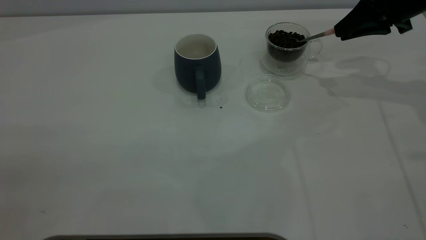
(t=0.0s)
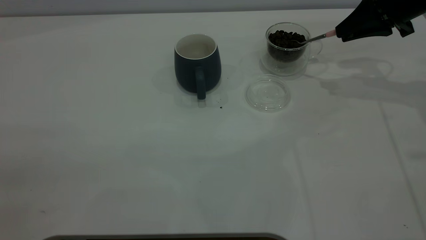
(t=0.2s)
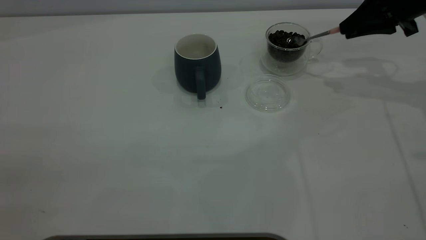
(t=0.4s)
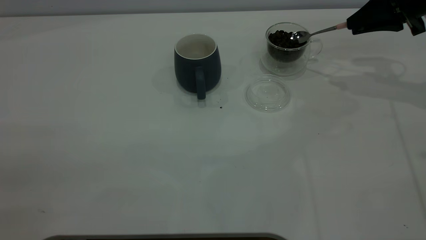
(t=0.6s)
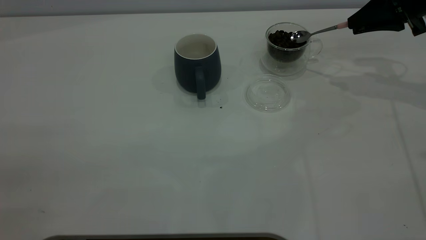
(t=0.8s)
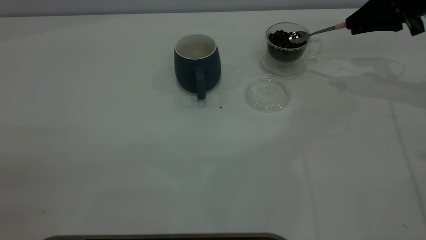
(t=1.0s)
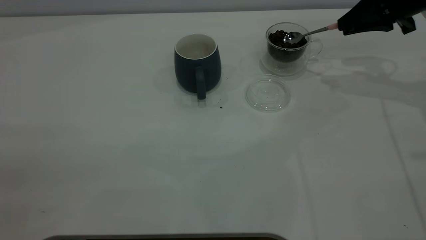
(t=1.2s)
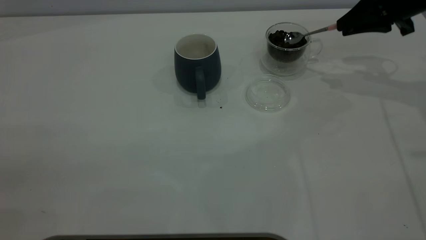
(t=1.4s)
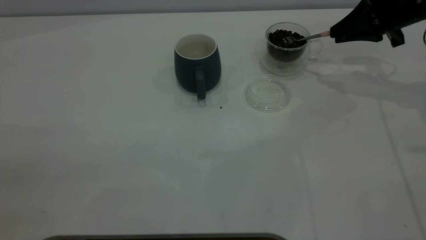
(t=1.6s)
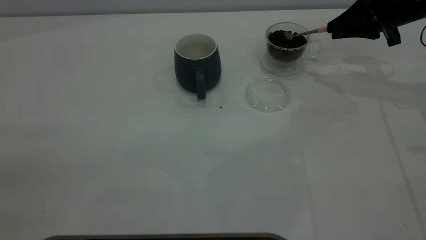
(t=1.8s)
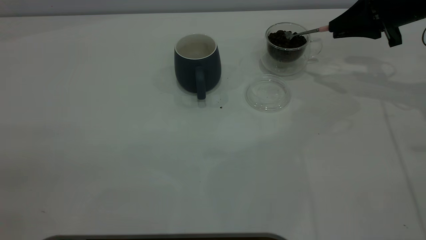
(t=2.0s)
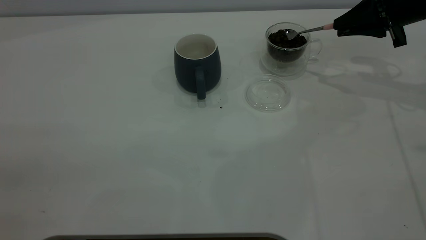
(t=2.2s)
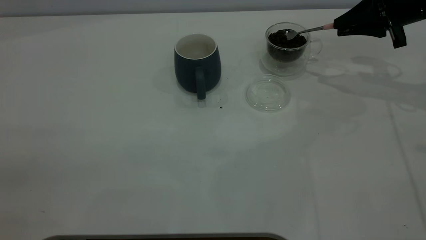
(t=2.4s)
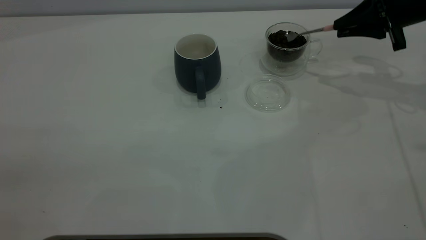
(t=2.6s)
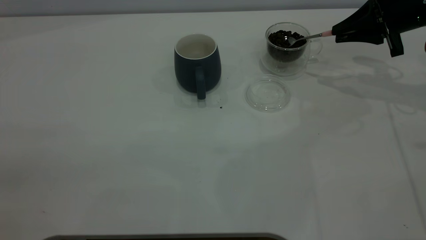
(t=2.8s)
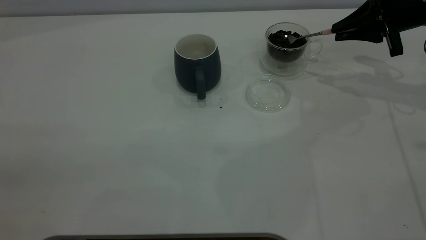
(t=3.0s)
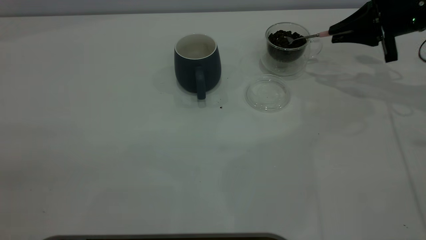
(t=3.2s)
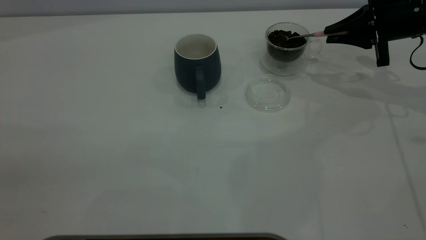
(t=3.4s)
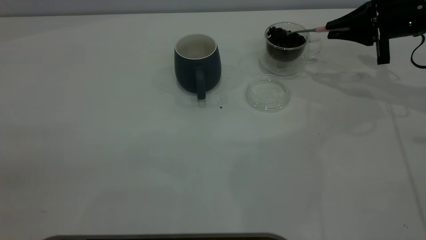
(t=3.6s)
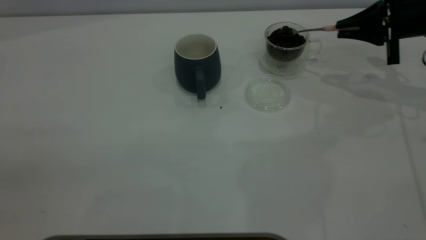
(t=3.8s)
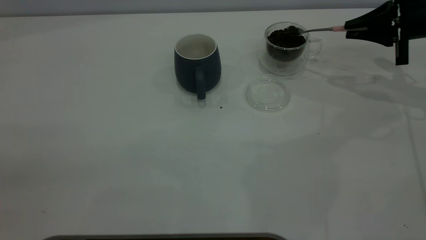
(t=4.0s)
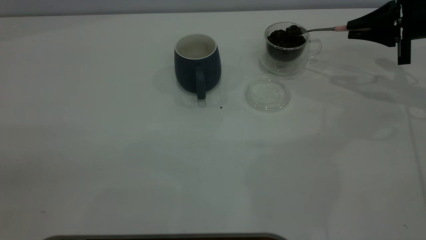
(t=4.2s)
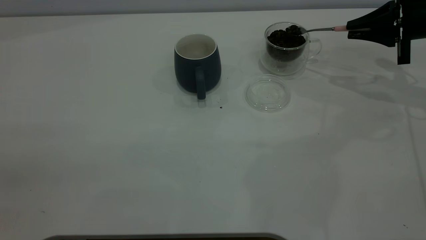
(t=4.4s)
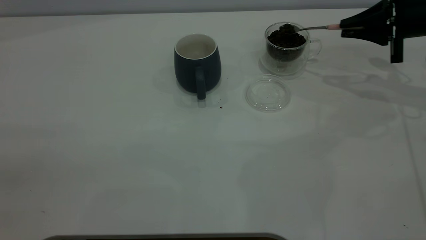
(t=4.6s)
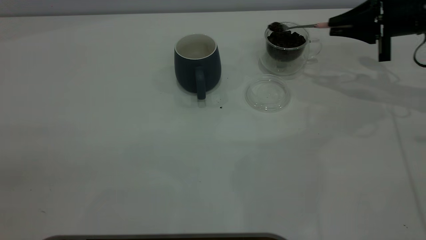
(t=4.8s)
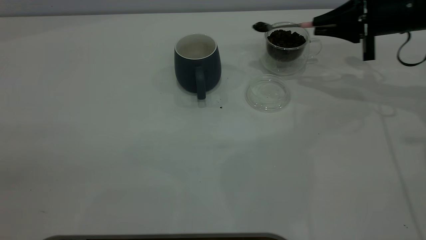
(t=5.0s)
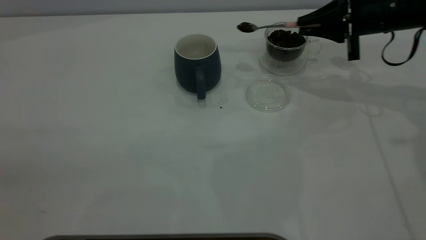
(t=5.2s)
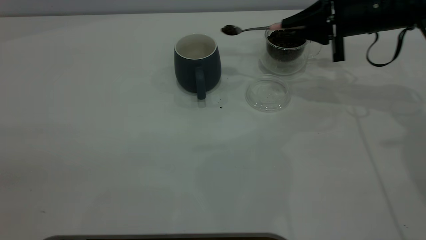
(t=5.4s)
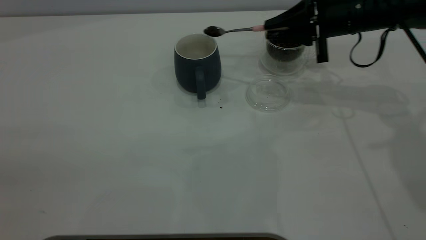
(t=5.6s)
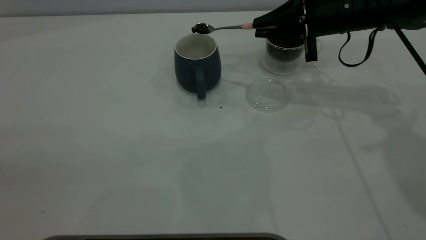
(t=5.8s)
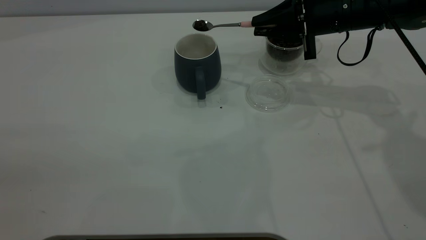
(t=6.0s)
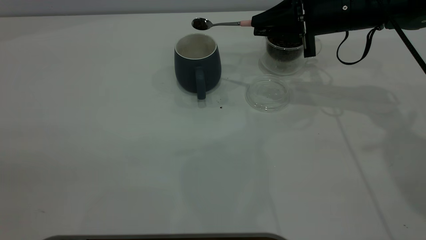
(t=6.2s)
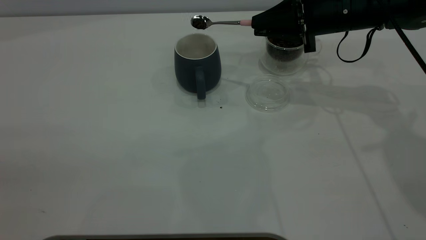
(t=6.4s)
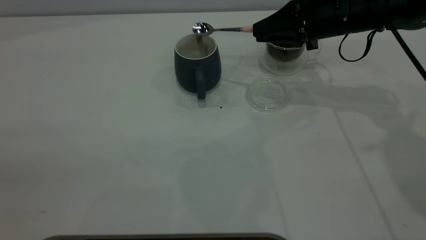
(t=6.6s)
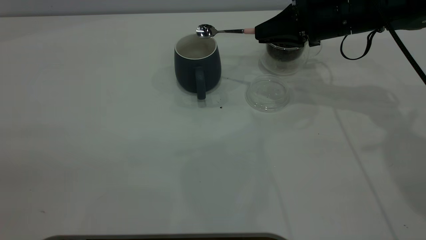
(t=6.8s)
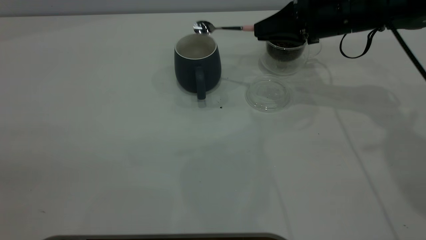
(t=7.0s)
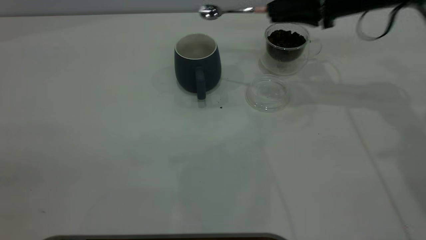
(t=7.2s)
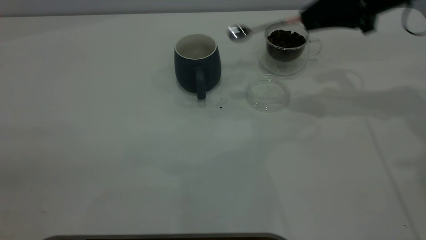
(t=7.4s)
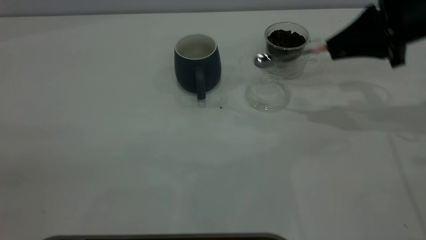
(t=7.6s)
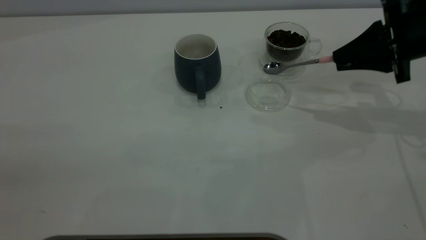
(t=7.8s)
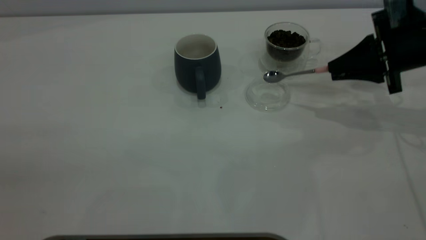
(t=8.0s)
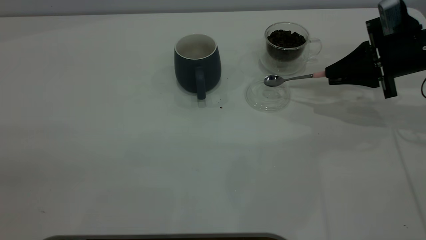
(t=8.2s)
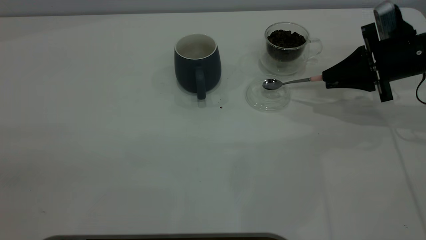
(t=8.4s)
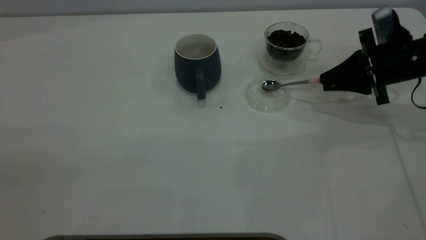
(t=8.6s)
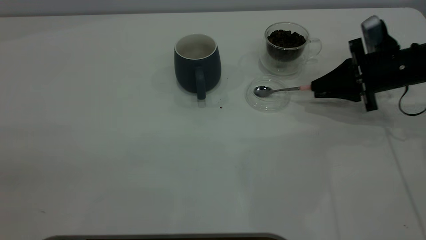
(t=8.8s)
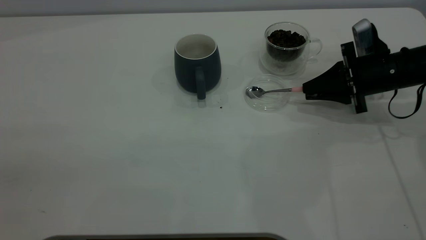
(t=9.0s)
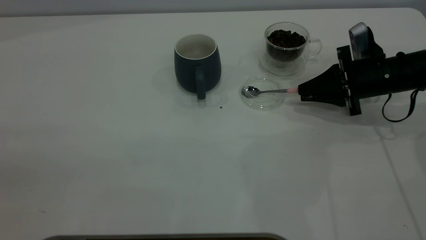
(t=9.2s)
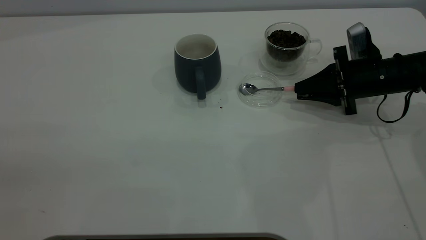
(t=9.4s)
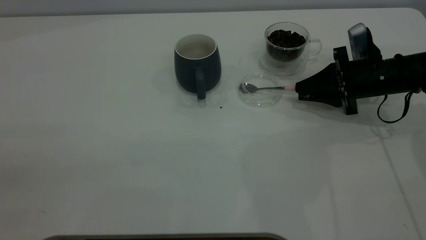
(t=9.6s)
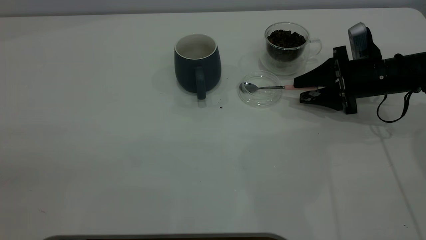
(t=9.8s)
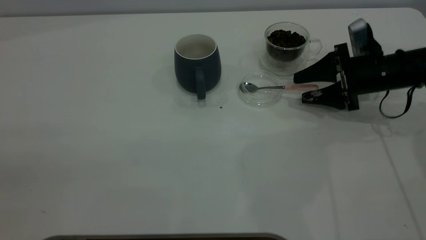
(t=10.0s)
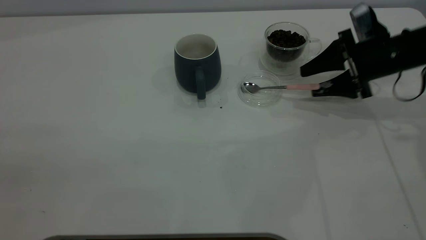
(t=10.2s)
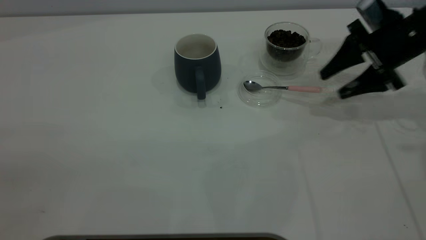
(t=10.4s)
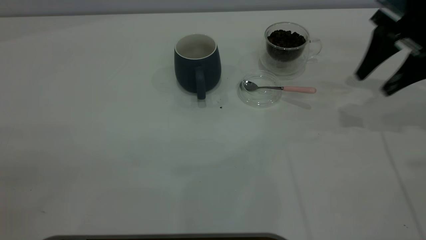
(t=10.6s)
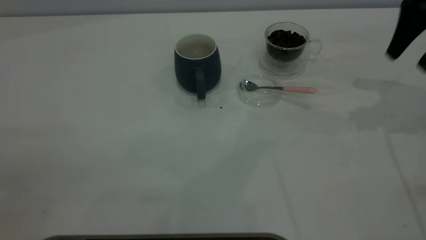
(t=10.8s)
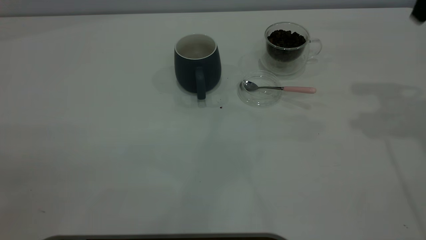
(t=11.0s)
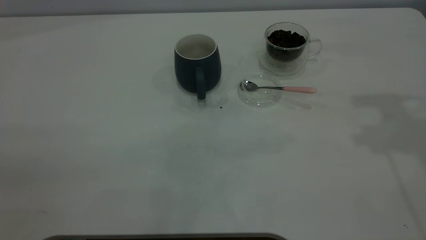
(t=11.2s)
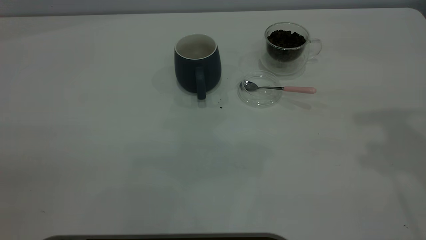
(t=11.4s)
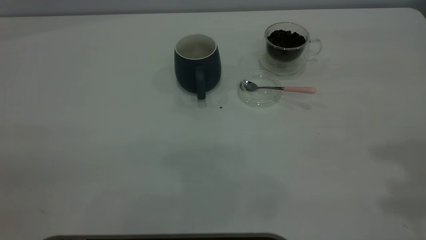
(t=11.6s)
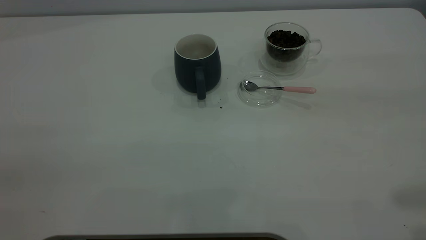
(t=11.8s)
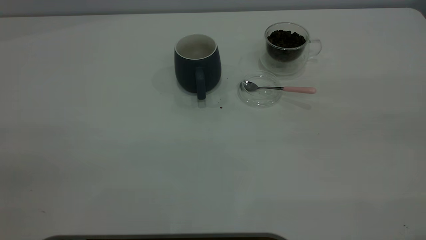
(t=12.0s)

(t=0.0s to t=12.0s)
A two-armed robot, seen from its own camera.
Task of the whole recording: the left gripper place the grey cup in the center of the table, the right gripper take the pink spoon from the cup lid and scoop out the coffee beans from the coffee cup and put them into the grey cup, the right gripper put the spoon back into the cup lid.
Step, t=0.0s - t=7.0s: Scoop a spoonful of beans into the cup.
Step, t=7.2s - t=10.4s: Place the spoon back in its original place.
t=1.6s - t=3.0s: The grippers stay close to where they were, moving slightly.
t=3.0s - t=4.4s: The grippers make only small movements.
t=4.4s - t=6.0s: The right gripper travels to the left by some 15 cm.
t=6.0s - t=7.6s: The right gripper travels to the right and backward by about 10 cm.
t=7.6s - t=9.0s: The right gripper travels downward by some 10 cm.
t=9.0s - t=10.4s: The right gripper is displaced upward by about 10 cm, and opens up.
t=10.4s - t=12.0s: The right gripper shifts roughly 40 cm backward and upward.
